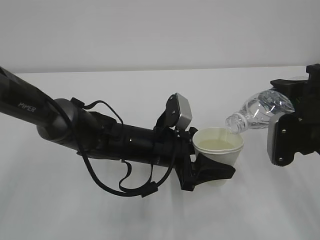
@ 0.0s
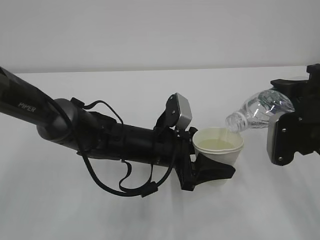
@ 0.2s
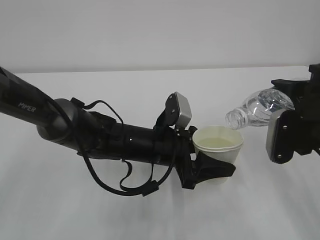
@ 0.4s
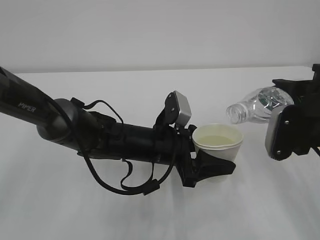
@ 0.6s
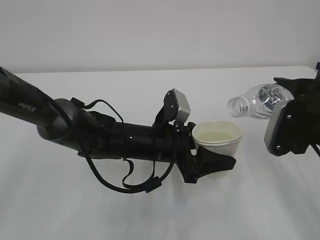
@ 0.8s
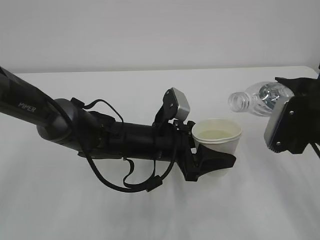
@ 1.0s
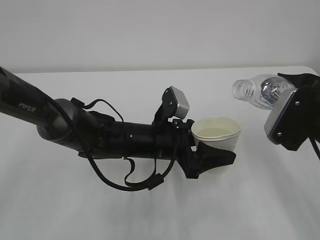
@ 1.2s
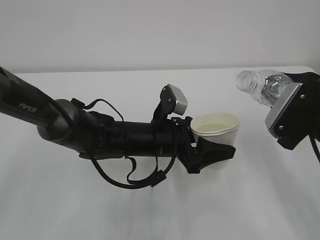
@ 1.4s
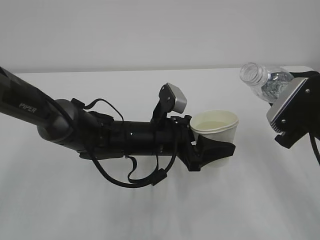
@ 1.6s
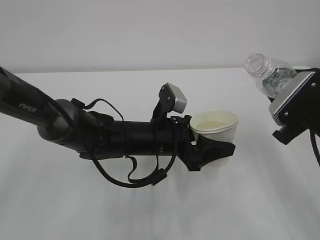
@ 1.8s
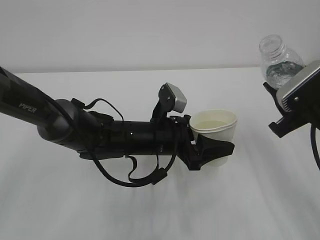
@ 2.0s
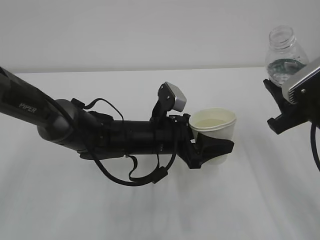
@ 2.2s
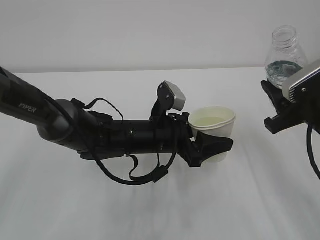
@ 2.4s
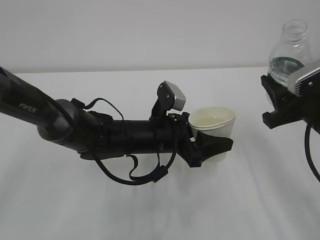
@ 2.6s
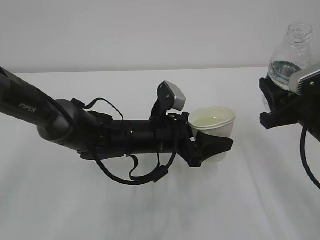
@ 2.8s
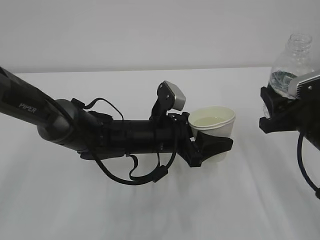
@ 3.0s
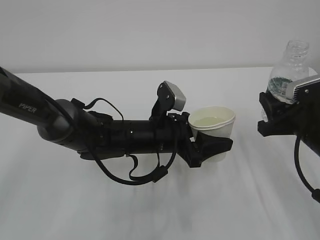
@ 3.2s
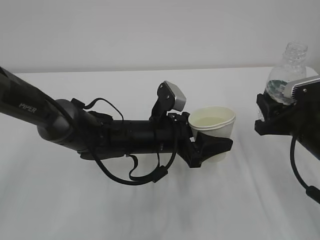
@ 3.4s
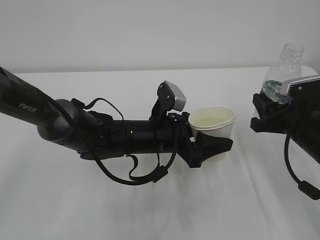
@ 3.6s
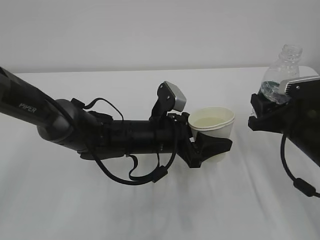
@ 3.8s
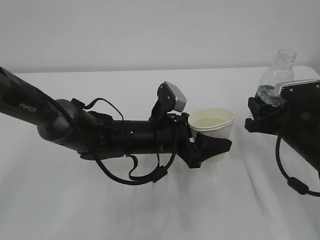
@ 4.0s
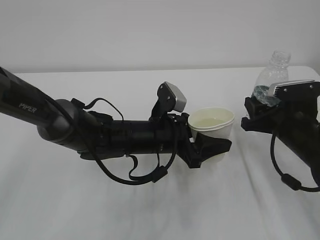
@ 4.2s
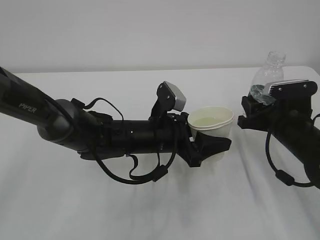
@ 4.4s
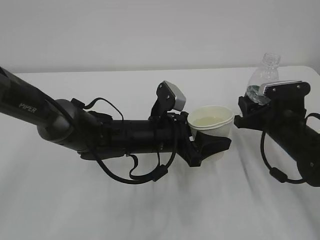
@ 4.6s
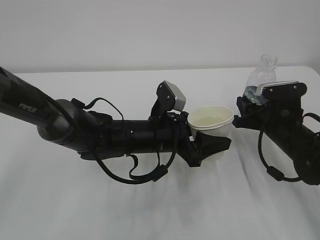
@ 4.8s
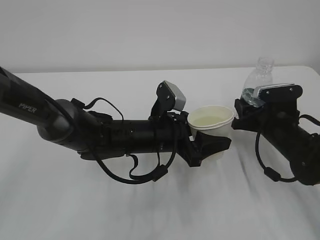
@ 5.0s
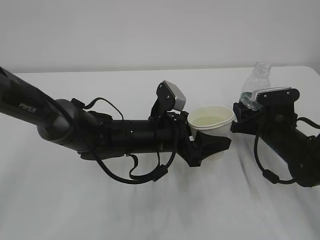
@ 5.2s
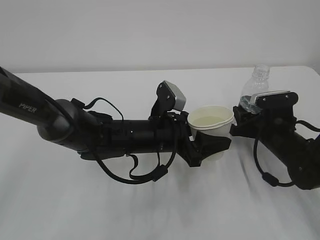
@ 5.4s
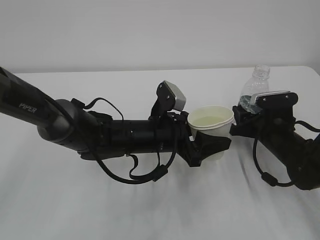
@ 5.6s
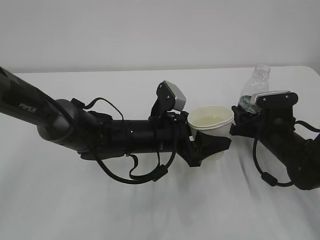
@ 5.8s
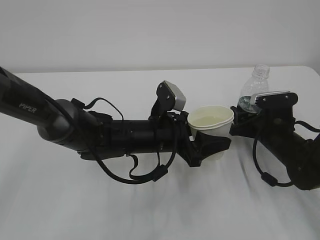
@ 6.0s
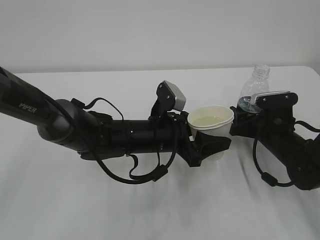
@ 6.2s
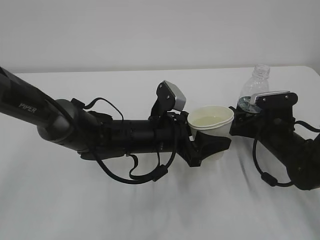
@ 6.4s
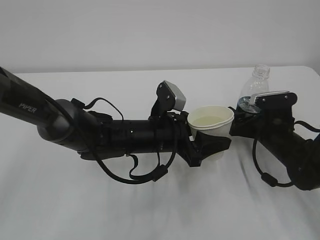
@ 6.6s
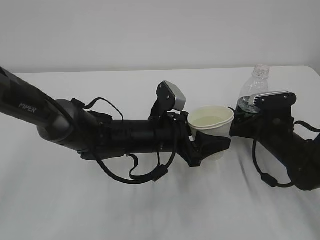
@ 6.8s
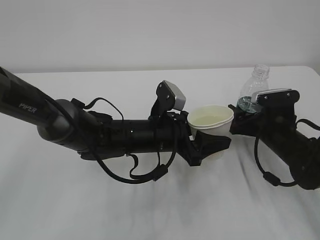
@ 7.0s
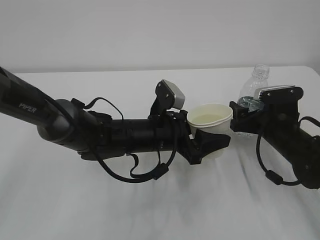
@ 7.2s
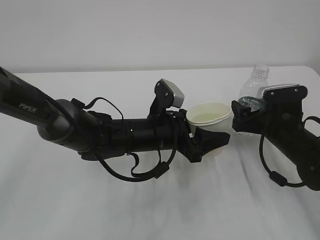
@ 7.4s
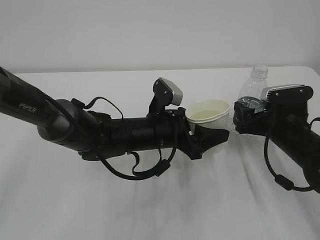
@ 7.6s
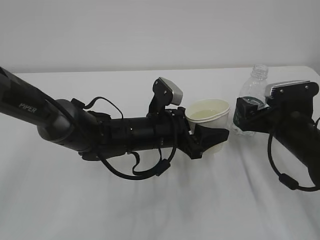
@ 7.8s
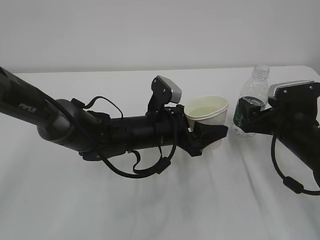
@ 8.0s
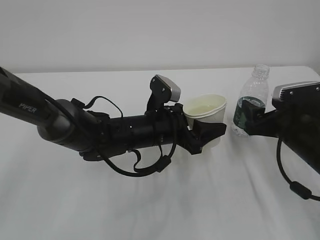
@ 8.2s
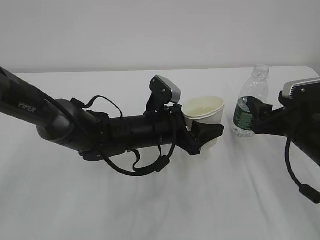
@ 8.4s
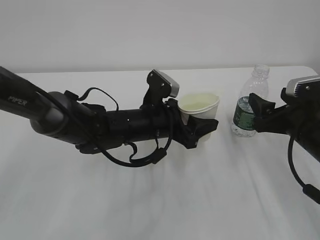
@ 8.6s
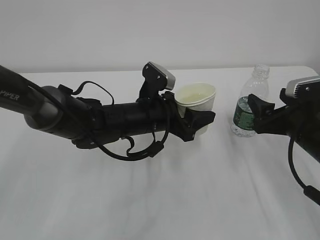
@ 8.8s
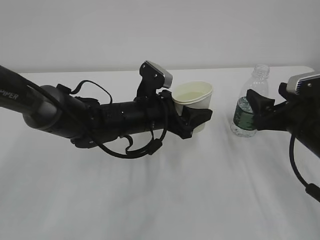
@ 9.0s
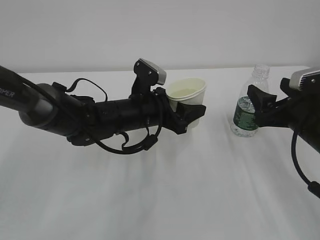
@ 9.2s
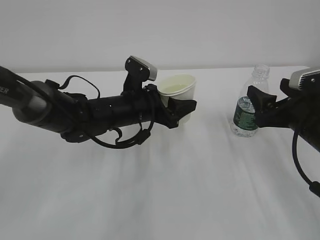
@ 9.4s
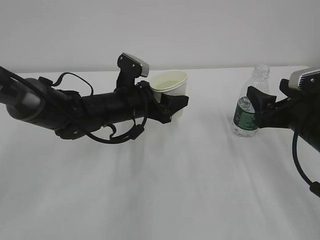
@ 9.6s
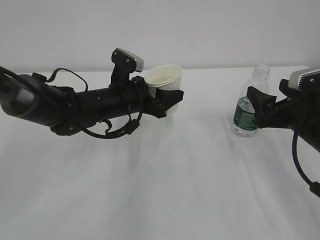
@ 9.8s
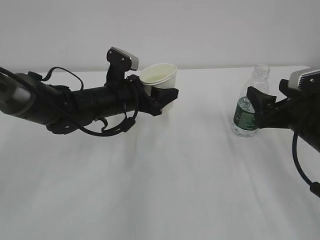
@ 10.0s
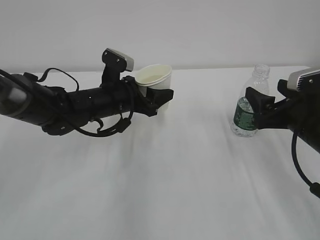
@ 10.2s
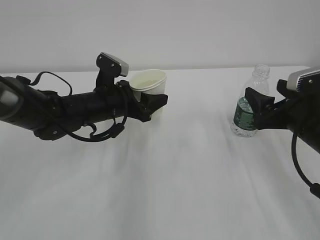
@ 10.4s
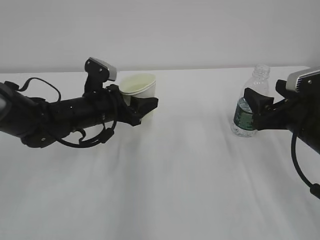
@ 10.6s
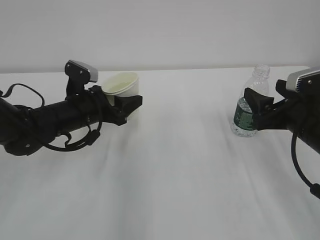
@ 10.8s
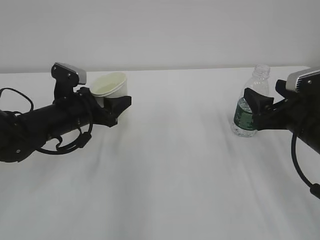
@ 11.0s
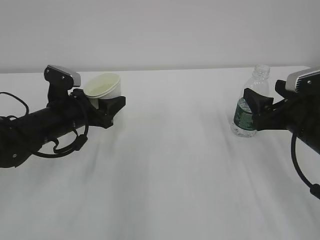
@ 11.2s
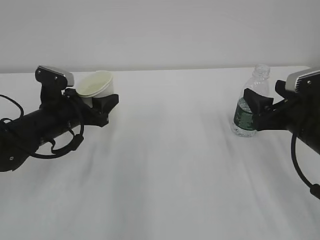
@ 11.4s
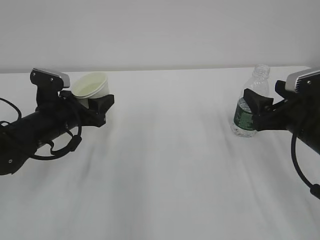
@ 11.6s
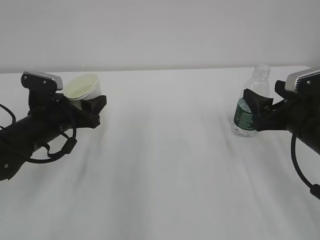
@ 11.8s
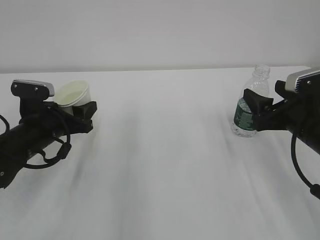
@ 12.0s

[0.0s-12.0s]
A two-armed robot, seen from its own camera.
3.0s to 4.4s: The right gripper goes roughly 10 cm forward and downward.
4.4s to 6.0s: The grippers make only small movements.
6.0s to 7.6s: The right gripper opens its fingers.
7.6s to 9.0s: The right gripper heads upward, covering about 5 cm.
9.0s to 10.4s: The left gripper travels to the left by roughly 10 cm.
10.4s to 12.0s: The left gripper travels to the left and backward by approximately 10 cm.

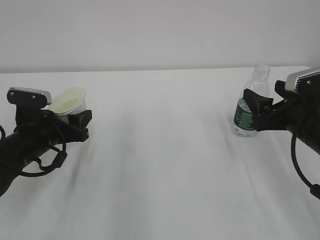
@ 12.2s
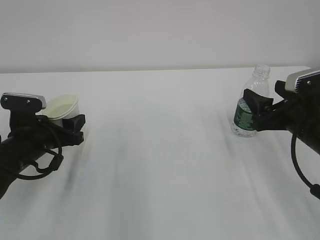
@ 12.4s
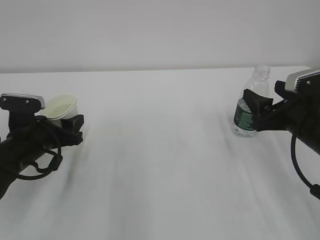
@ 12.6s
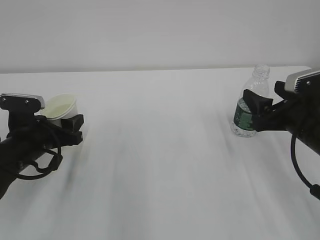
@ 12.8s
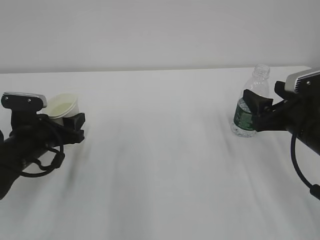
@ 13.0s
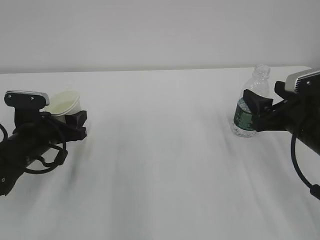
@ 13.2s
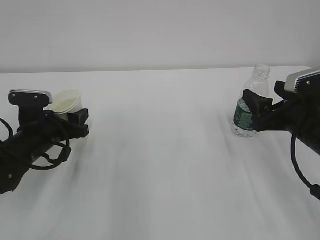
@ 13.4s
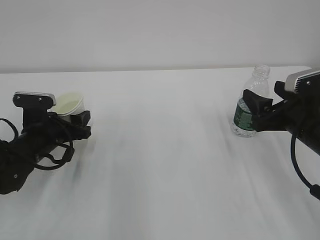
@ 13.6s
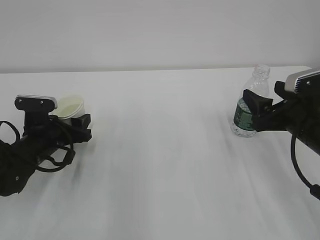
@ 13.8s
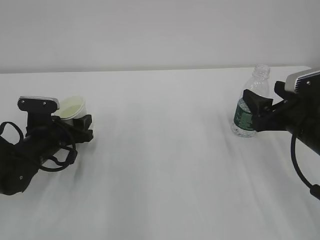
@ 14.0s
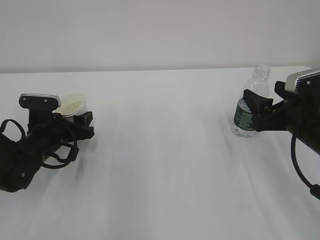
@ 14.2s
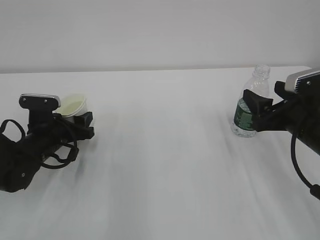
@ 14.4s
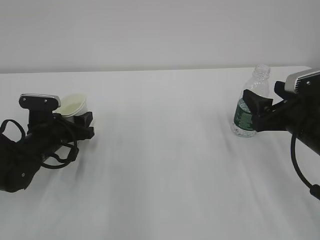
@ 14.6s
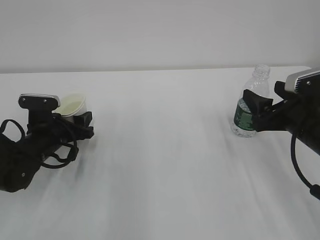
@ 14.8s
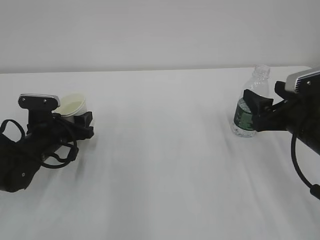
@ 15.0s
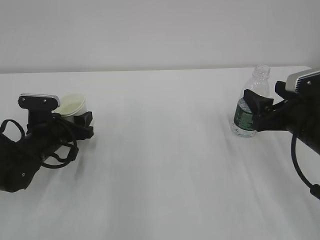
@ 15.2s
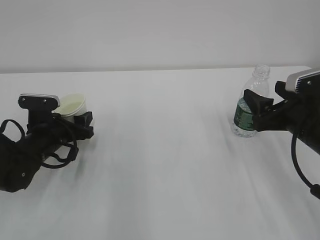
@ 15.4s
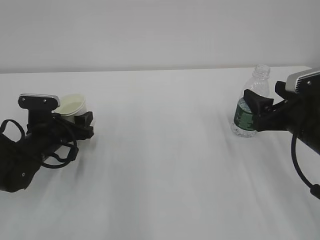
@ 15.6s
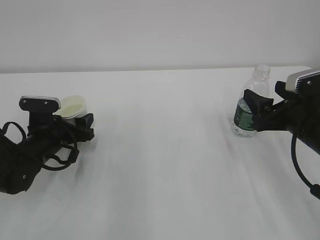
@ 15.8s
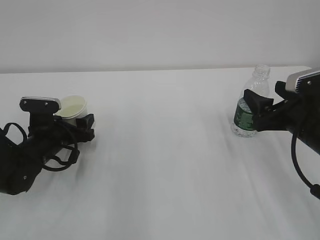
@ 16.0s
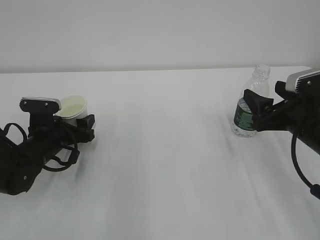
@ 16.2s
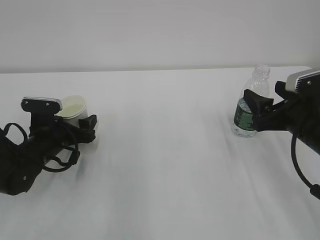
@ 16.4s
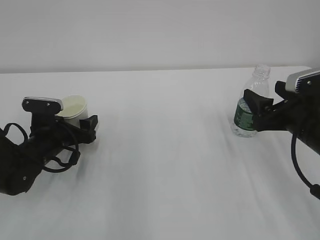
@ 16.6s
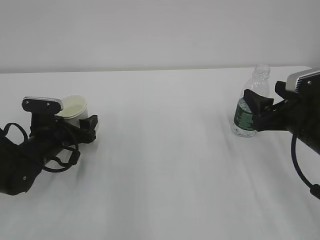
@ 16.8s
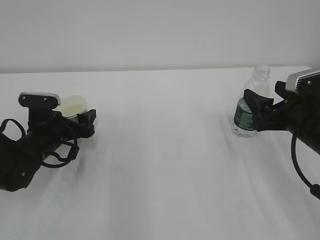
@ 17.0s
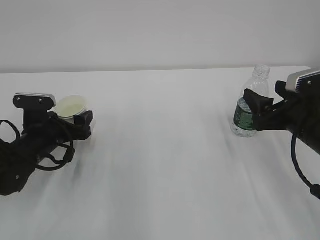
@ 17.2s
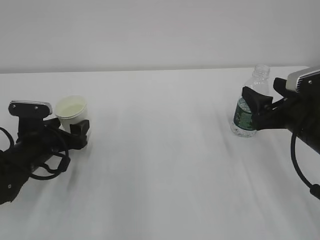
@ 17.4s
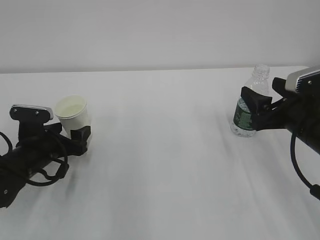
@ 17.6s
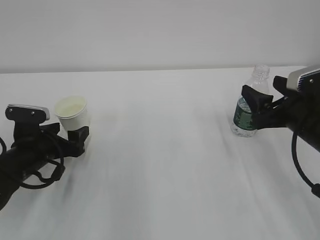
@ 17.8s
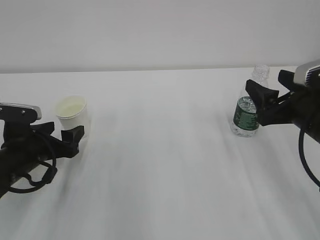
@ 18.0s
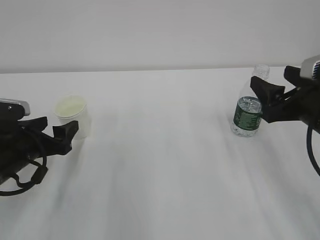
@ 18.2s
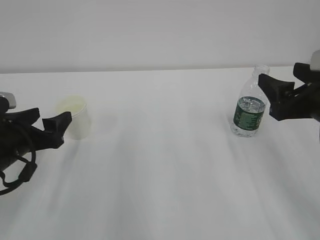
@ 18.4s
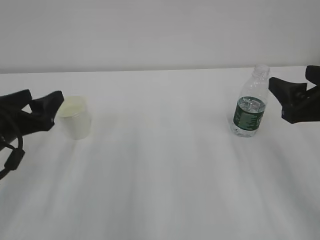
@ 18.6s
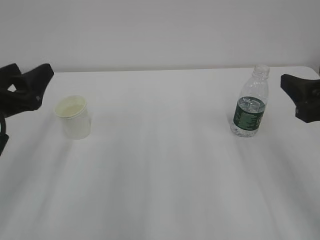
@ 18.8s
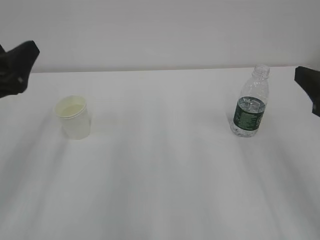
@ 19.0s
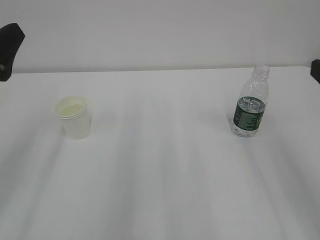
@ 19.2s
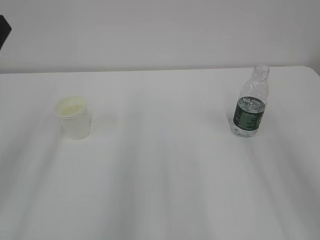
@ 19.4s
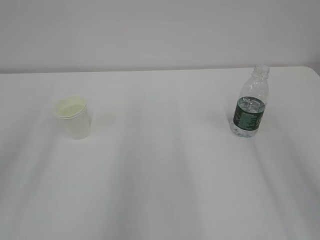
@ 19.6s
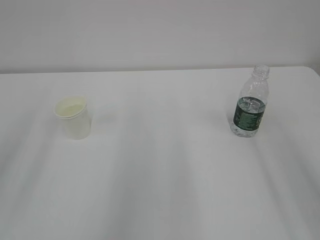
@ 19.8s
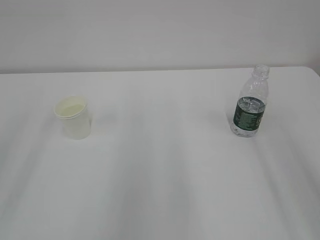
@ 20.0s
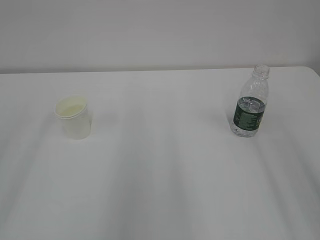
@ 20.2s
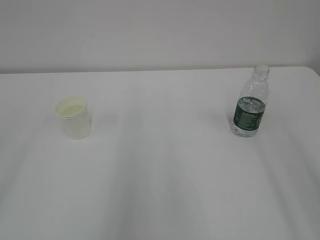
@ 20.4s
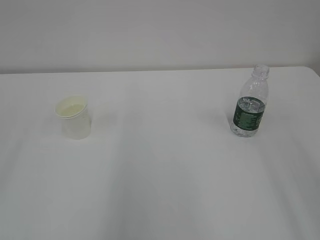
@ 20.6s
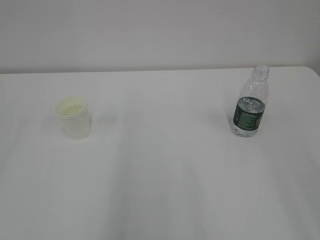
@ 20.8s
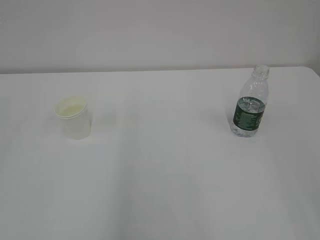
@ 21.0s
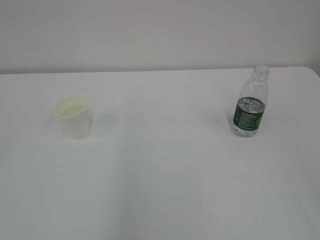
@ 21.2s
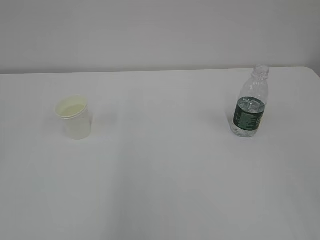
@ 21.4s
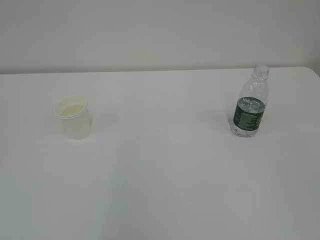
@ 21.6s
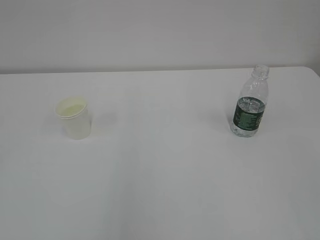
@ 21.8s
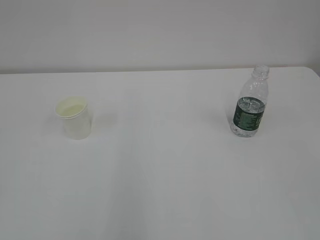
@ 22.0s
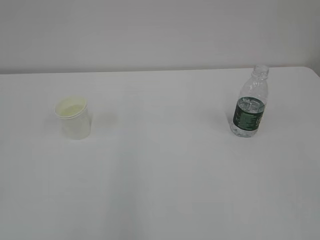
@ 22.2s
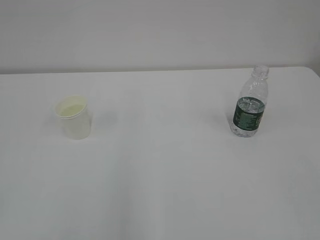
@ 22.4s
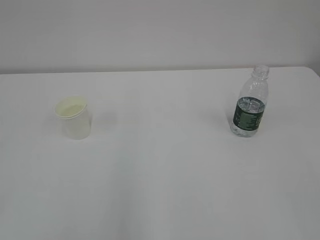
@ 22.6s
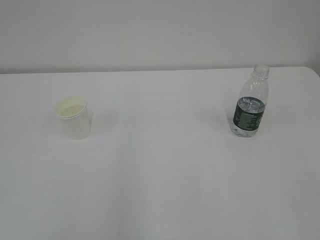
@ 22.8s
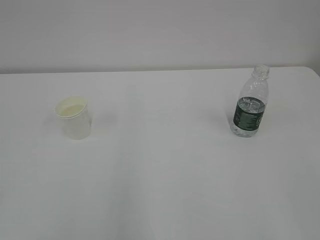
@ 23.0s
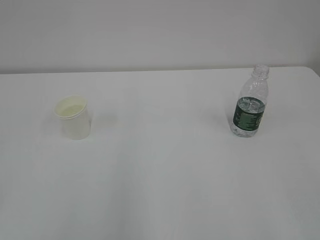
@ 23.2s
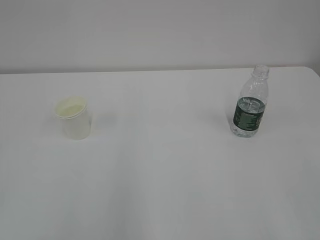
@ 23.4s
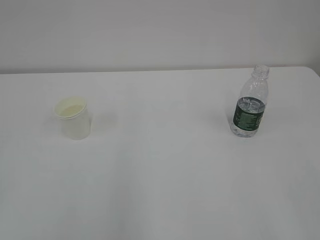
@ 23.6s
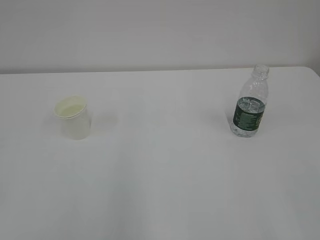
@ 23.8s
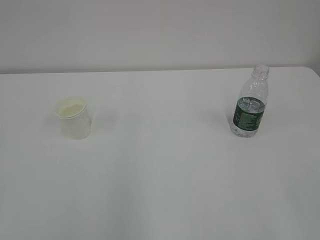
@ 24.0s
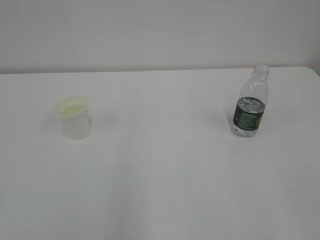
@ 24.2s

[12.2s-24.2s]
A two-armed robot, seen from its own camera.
12.2s to 13.8s: The grippers move only a little.
13.8s to 15.2s: The two grippers keep their place.
15.2s to 16.6s: The left gripper opens its fingers.
16.6s to 18.2s: The left gripper is displaced backward by some 5 cm.
18.2s to 19.8s: The two grippers go roughly 20 cm upward and backward.
